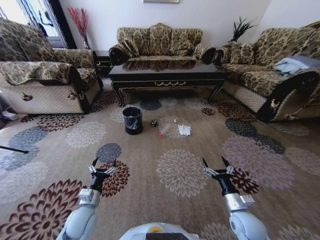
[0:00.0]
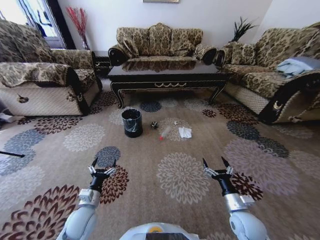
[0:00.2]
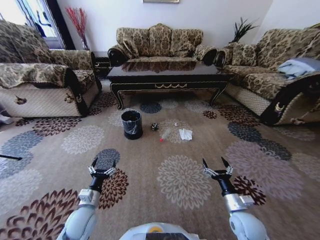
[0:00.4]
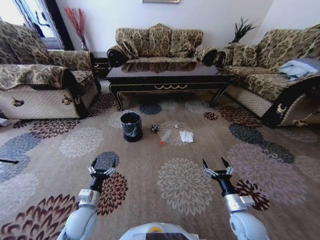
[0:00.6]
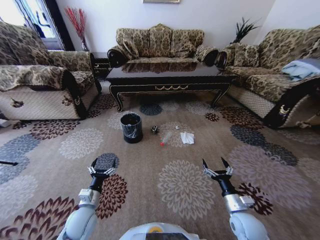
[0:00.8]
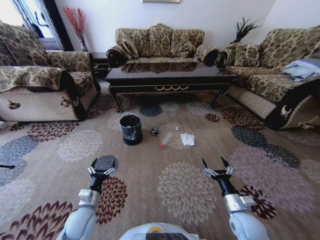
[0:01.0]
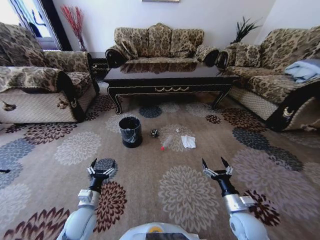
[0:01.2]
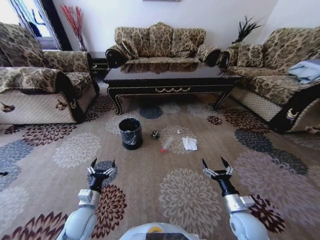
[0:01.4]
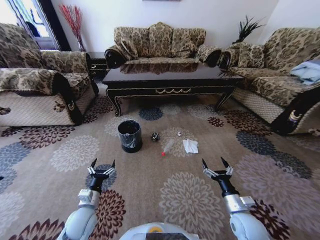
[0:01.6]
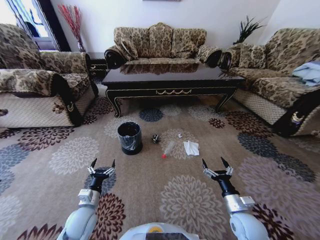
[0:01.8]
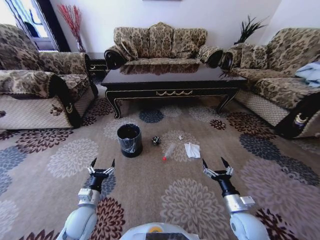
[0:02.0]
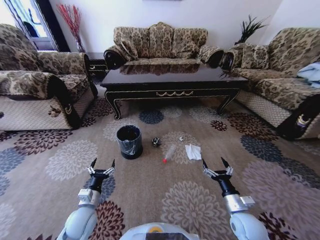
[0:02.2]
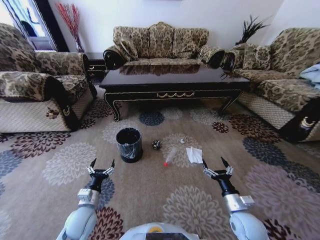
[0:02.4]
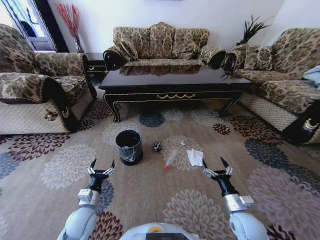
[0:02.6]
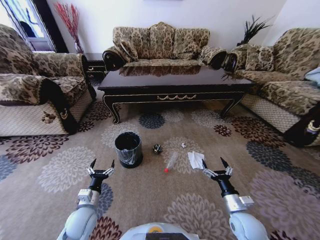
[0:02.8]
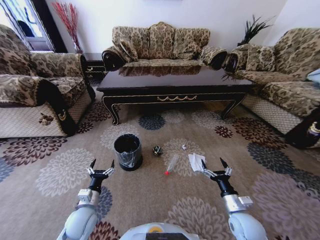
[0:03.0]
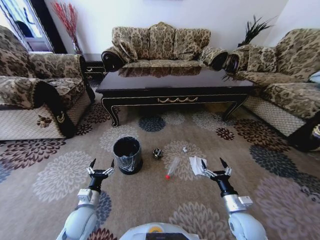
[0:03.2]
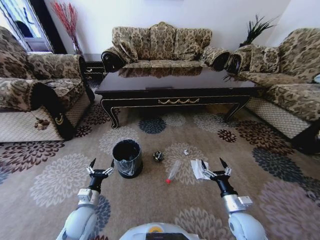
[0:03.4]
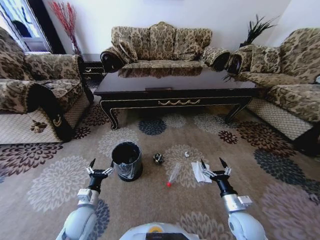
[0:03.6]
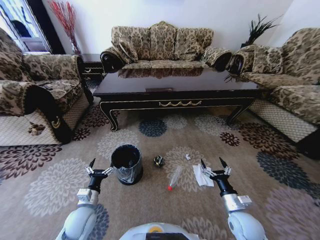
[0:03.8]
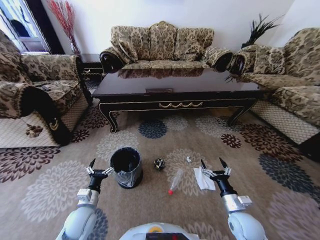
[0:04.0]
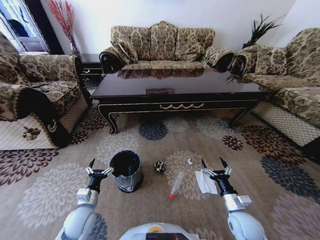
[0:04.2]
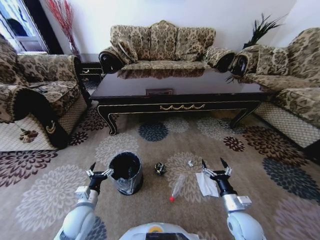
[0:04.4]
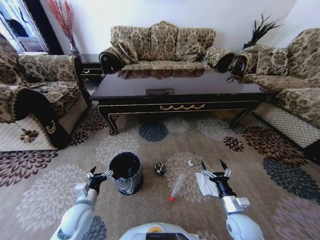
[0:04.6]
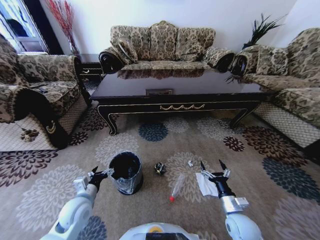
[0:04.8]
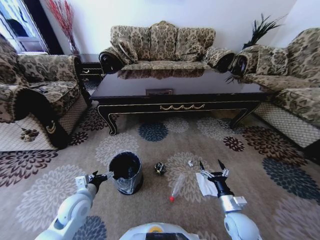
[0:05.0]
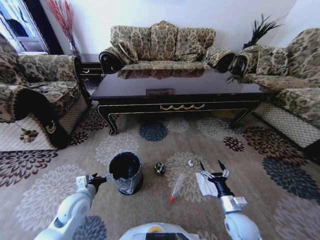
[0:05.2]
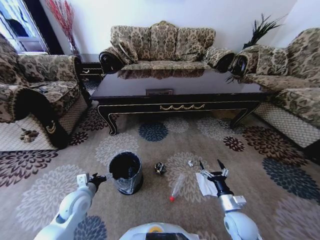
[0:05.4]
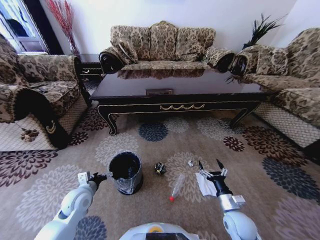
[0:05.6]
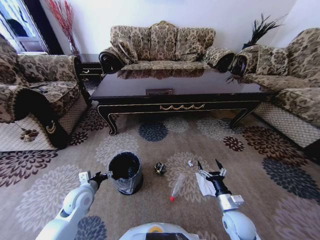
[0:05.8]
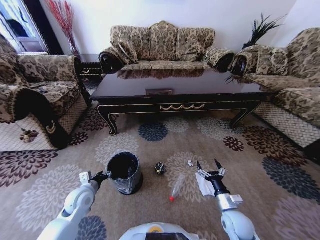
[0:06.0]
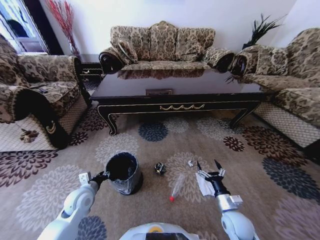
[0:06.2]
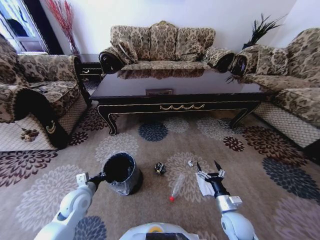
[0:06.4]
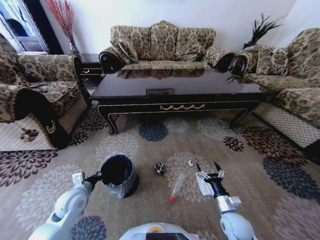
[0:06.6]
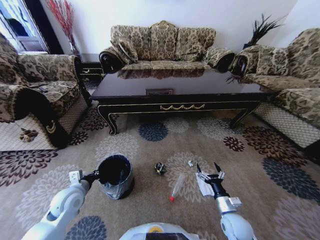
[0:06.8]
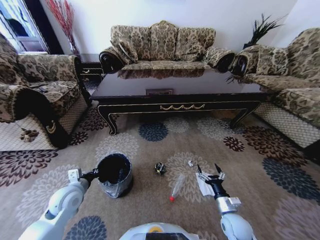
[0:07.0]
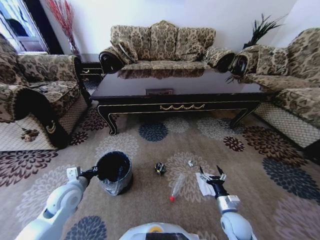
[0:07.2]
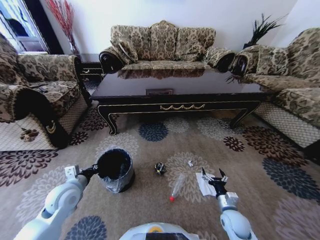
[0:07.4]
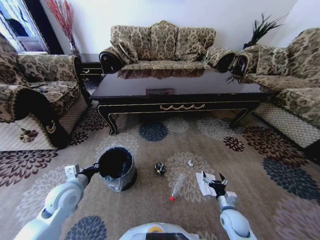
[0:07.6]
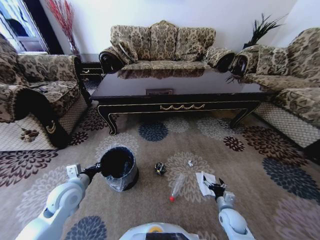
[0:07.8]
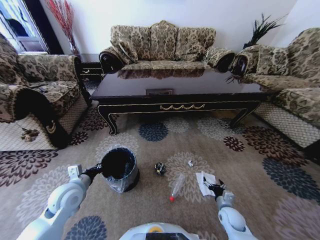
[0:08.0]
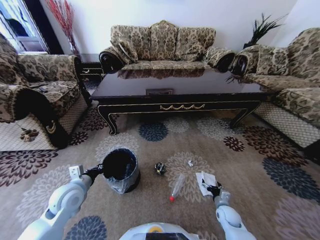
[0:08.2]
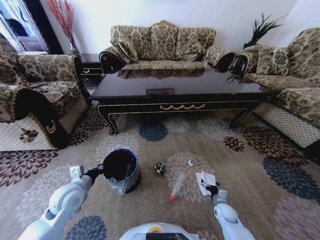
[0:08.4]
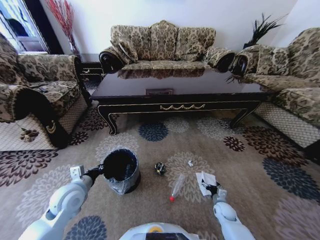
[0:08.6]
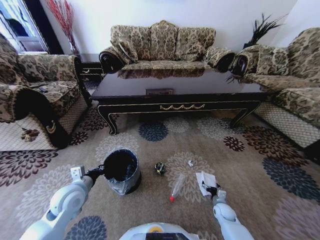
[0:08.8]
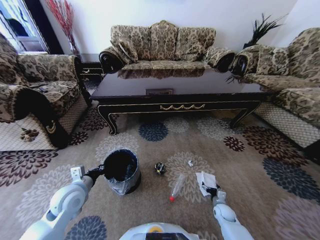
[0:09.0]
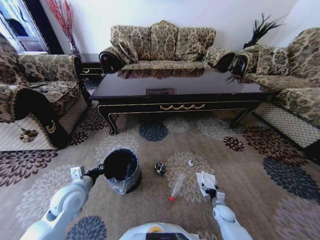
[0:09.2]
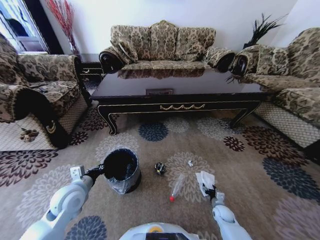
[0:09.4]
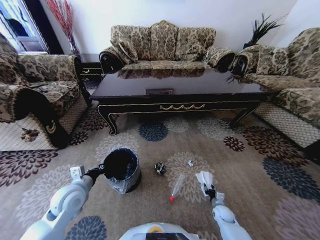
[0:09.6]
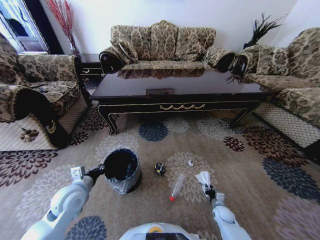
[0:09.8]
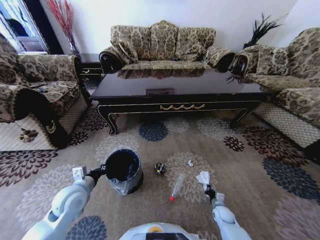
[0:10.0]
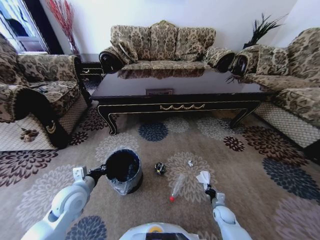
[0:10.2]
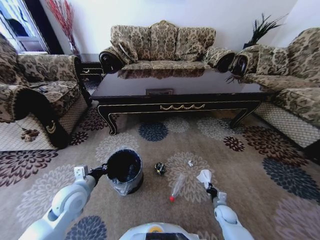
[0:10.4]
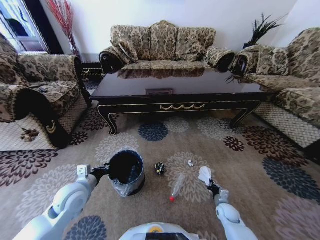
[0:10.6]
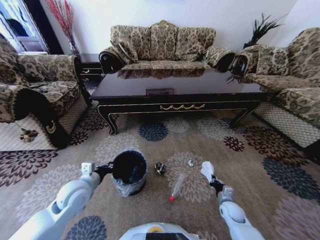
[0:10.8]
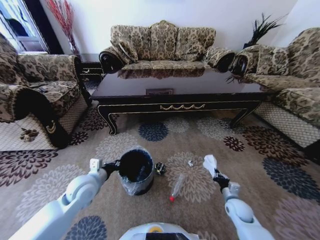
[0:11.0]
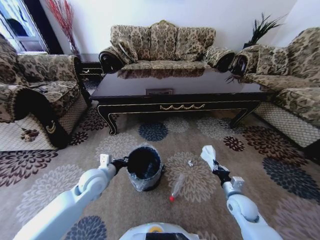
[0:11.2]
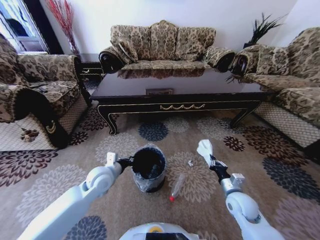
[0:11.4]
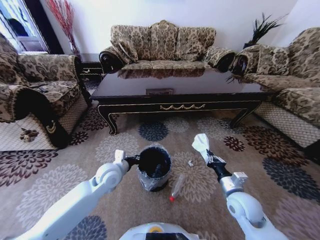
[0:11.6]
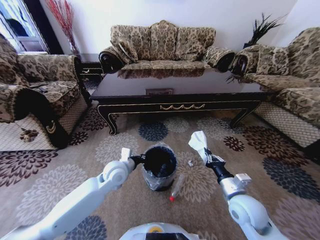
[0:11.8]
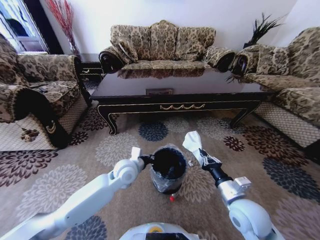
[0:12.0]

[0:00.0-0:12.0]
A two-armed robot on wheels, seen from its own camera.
Task of the whole recording: Move to the front of the table and pick up the trash from the floor, then place it into the trash bin.
0:04.4 to 0:06.0: The left gripper travels forward by some 5 cm, and closes its fingers.
0:06.0 to 0:07.6: The right gripper travels downward by about 5 cm. The left gripper moves upward, some 5 cm, and closes.
0:07.6 to 0:09.0: The right gripper travels downward and forward by approximately 15 cm.
0:09.0 to 0:10.4: The right gripper closes up.
0:10.4 to 0:12.0: The left gripper travels to the right and forward by about 20 cm. Meanwhile the right gripper goes roughly 30 cm upward.

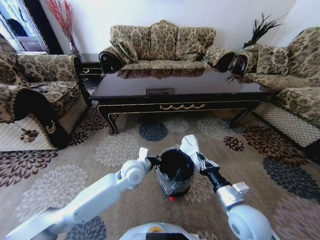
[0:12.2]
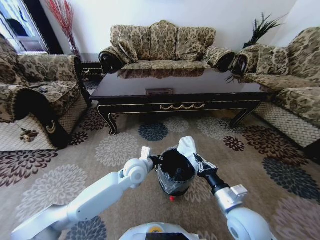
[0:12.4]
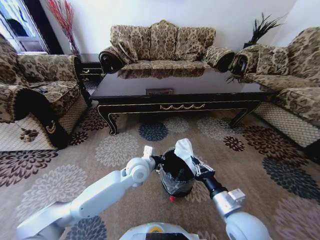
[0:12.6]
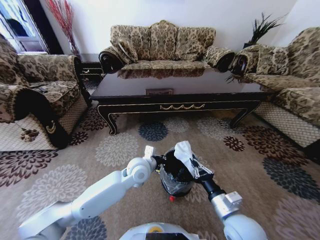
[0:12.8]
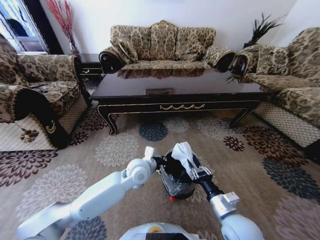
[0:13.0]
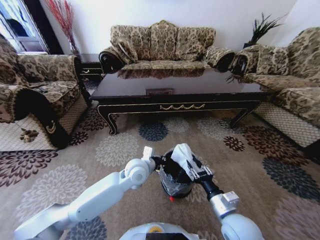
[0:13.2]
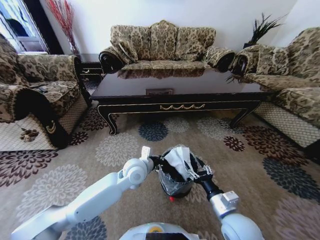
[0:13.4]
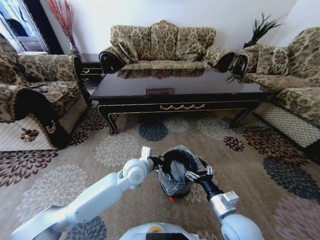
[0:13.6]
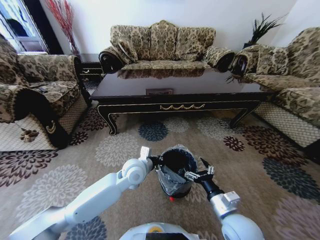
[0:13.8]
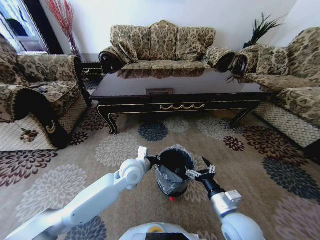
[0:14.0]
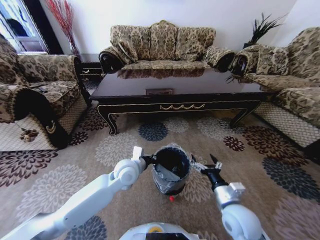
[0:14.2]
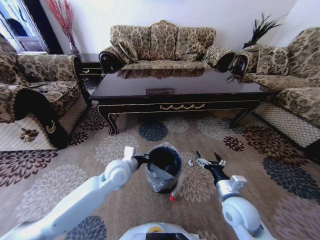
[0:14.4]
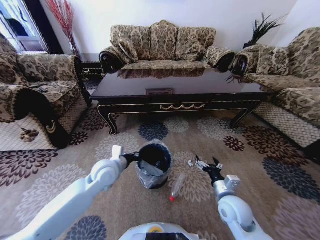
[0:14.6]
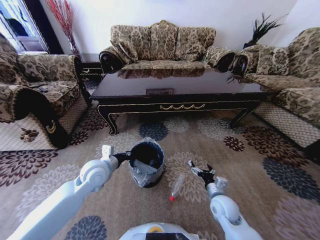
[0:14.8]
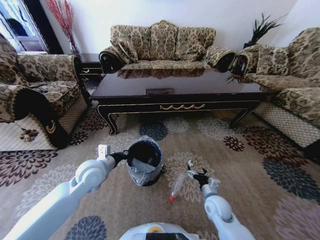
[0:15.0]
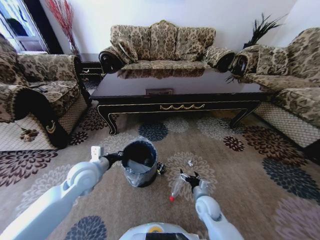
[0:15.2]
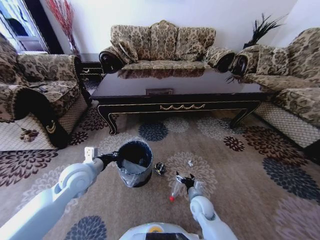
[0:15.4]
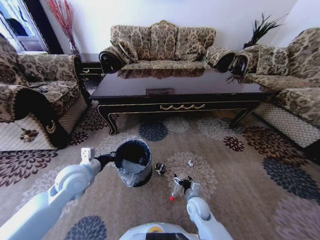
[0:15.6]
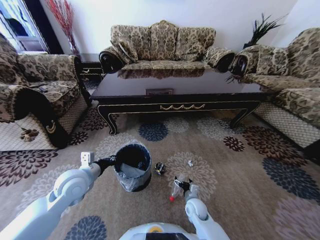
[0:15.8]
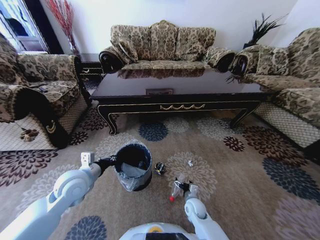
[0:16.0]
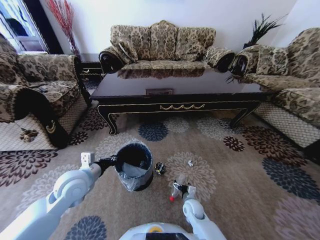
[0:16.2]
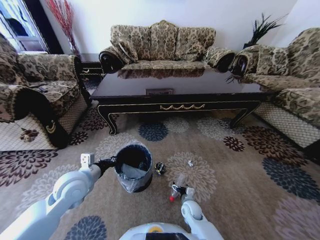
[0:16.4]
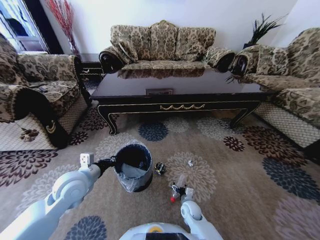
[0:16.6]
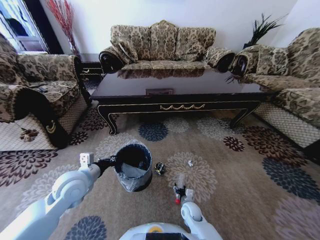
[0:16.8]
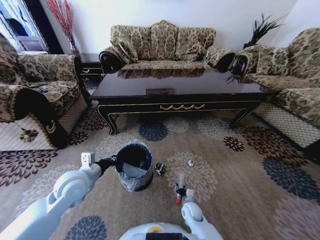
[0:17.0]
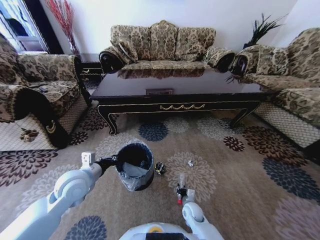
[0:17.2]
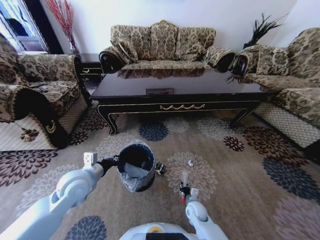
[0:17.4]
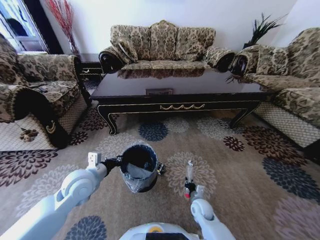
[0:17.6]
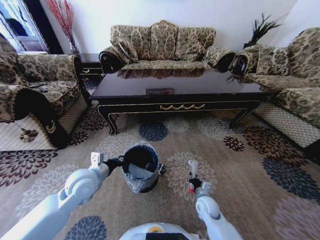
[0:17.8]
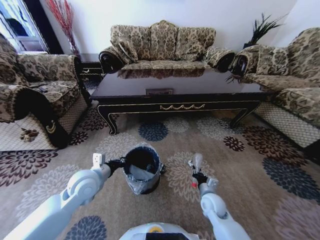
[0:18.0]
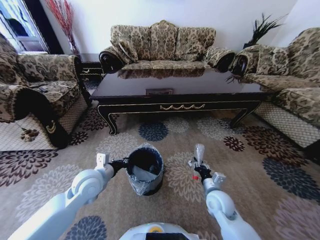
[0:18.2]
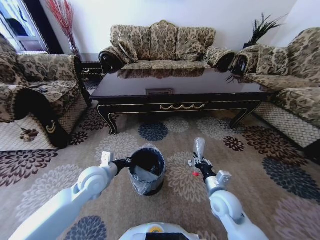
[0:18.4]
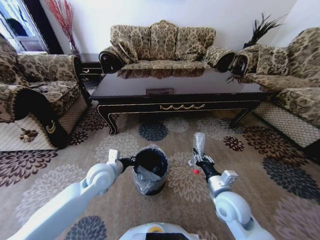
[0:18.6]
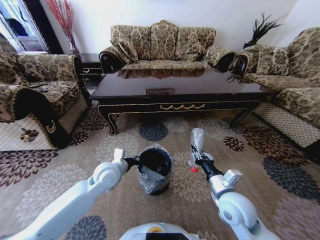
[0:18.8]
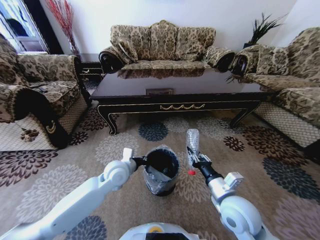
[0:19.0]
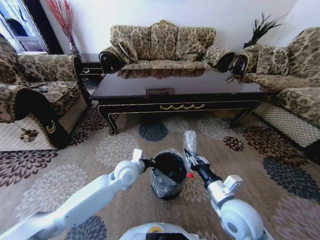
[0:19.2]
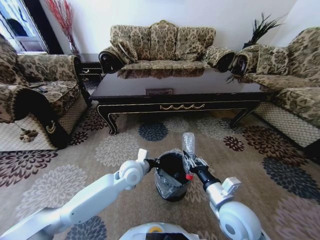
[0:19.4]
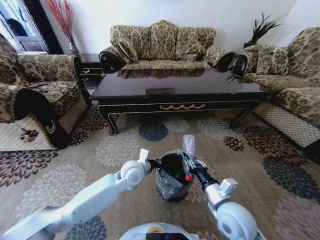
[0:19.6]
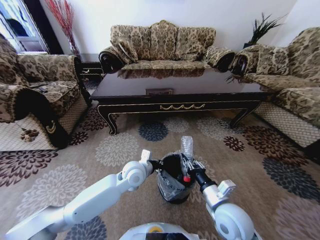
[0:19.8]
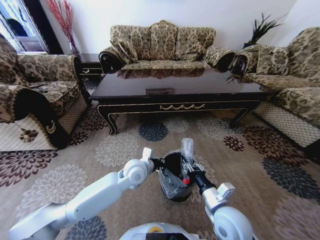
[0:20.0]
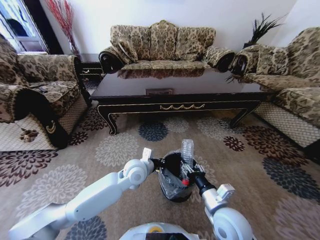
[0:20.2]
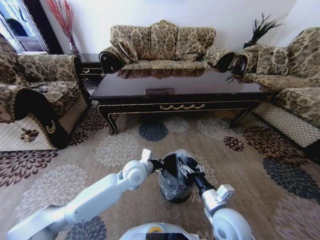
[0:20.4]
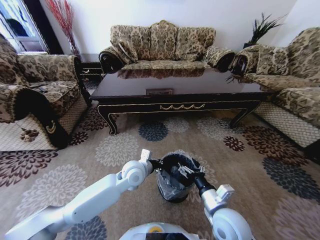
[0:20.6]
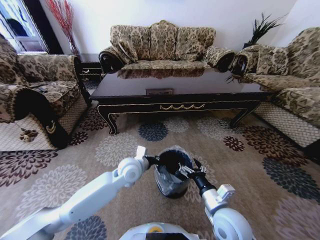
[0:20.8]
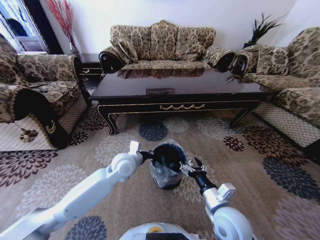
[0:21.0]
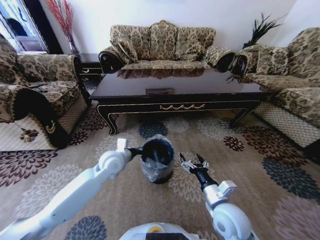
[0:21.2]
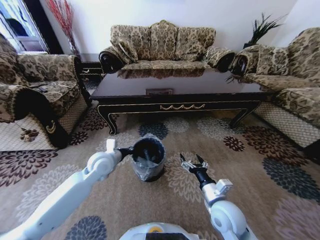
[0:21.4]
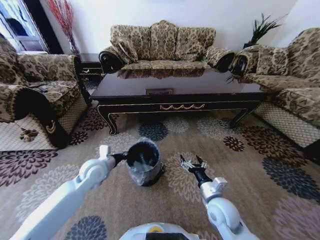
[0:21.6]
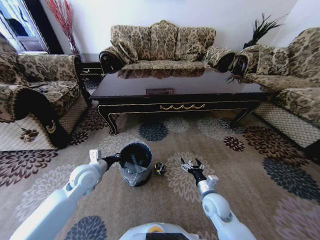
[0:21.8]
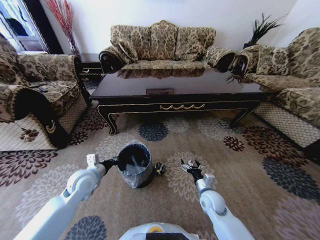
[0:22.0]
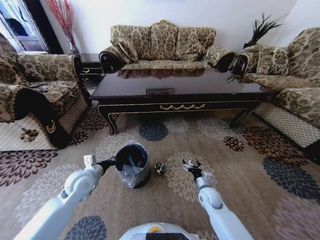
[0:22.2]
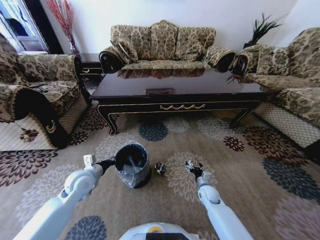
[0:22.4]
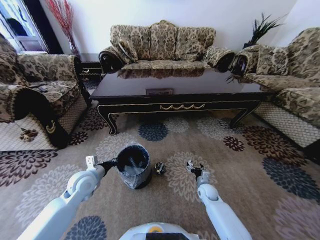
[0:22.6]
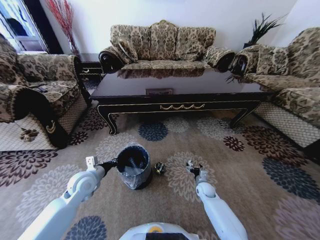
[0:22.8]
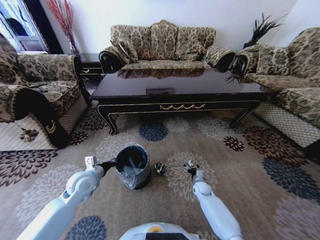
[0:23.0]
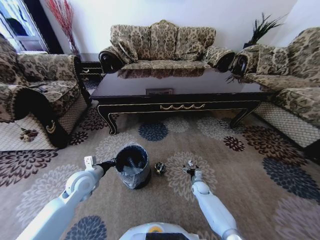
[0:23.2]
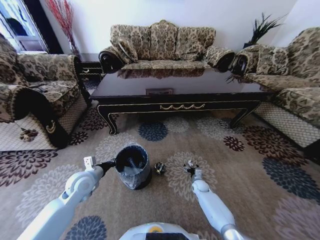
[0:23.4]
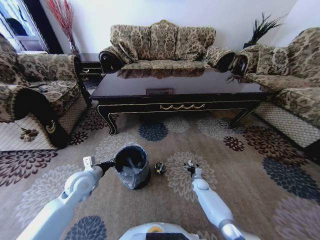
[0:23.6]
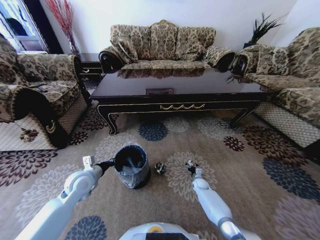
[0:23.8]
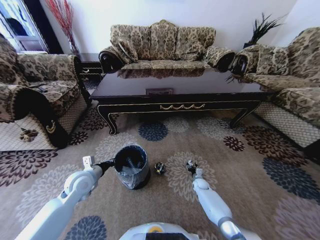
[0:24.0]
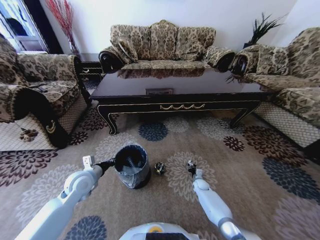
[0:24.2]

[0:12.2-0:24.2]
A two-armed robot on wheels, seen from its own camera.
Task of the whole recording: Move to the front of the table and pick up the trash from the floor, then place it into the trash bin.
0:12.2 to 0:13.8: The right gripper opens its fingers.
0:13.8 to 0:15.2: The left gripper goes approximately 15 cm to the left, while the right gripper is displaced downward and forward by about 15 cm.
0:15.2 to 0:16.6: The right gripper shifts about 10 cm downward and to the left.
0:16.6 to 0:18.2: The right gripper goes some 20 cm upward and to the right, and closes up.
0:18.2 to 0:19.8: The right gripper heads upward and backward, covering about 10 cm; the left gripper heads to the right, covering roughly 15 cm.
0:19.8 to 0:21.2: The right gripper opens up. Meanwhile the left gripper goes some 10 cm to the left.
0:21.2 to 0:22.6: The left gripper moves to the left and backward, approximately 15 cm, while the right gripper shifts some 25 cm downward and forward.
0:22.6 to 0:24.2: The right gripper moves downward and forward, approximately 10 cm, and closes up.
